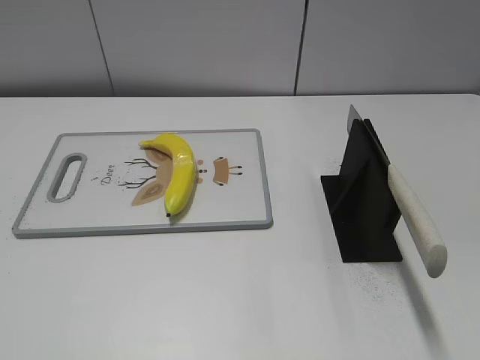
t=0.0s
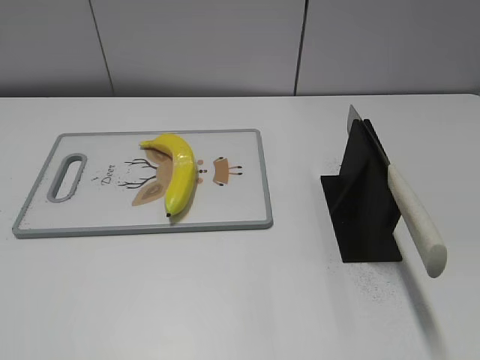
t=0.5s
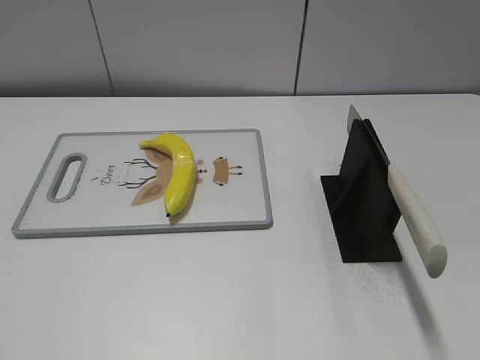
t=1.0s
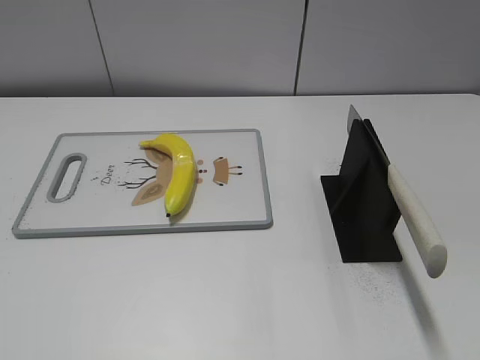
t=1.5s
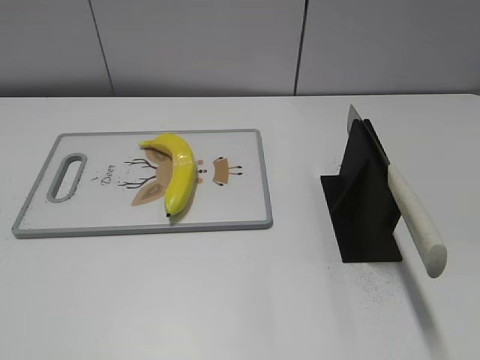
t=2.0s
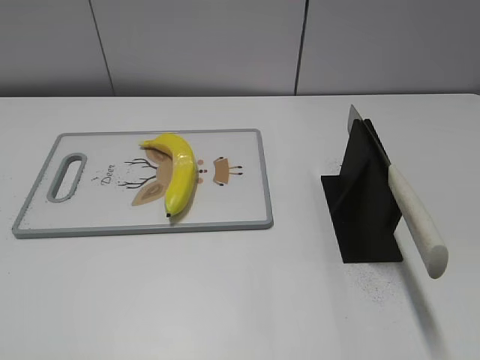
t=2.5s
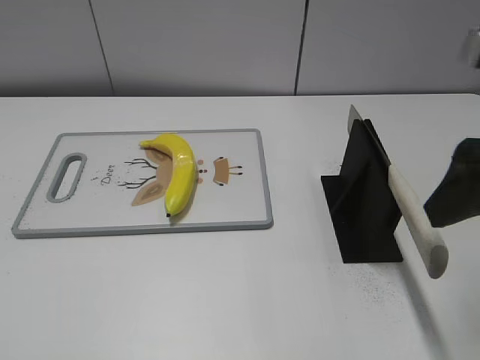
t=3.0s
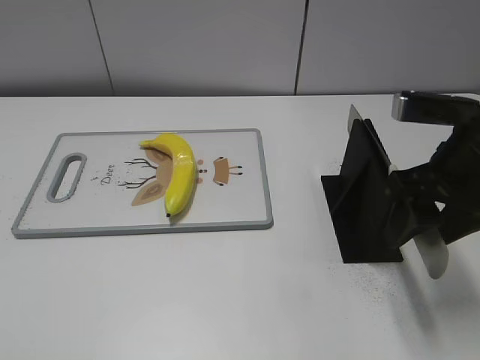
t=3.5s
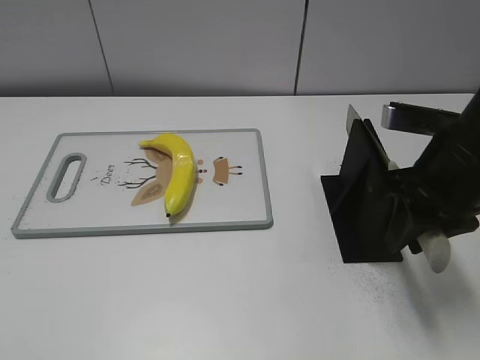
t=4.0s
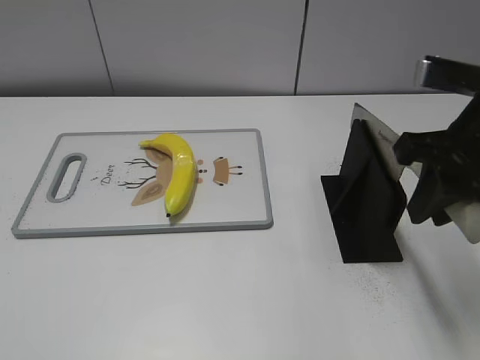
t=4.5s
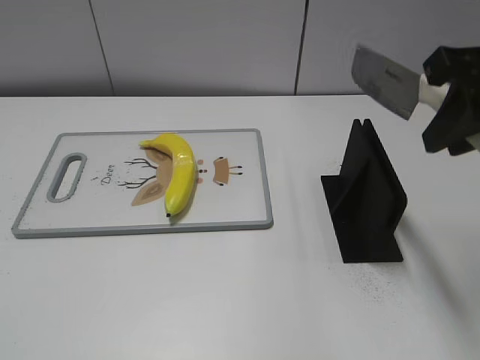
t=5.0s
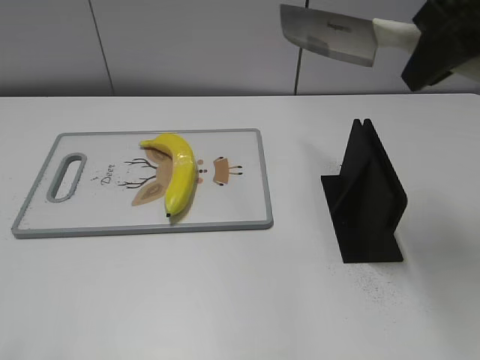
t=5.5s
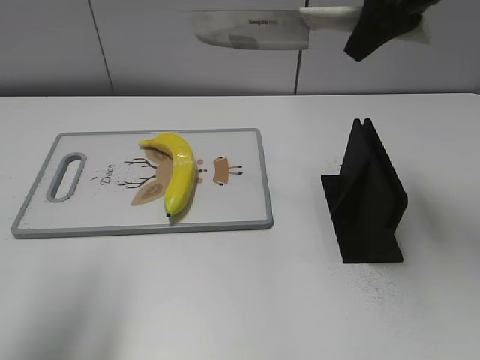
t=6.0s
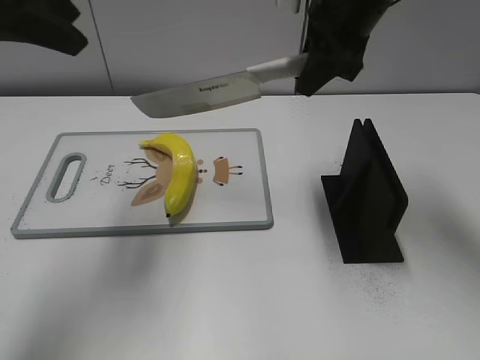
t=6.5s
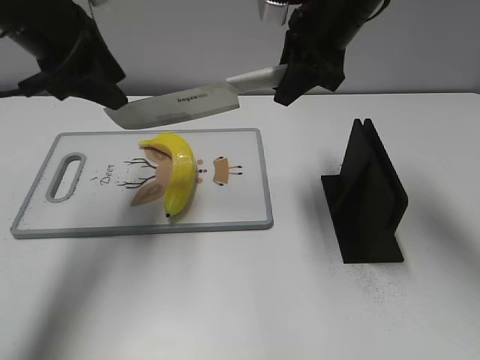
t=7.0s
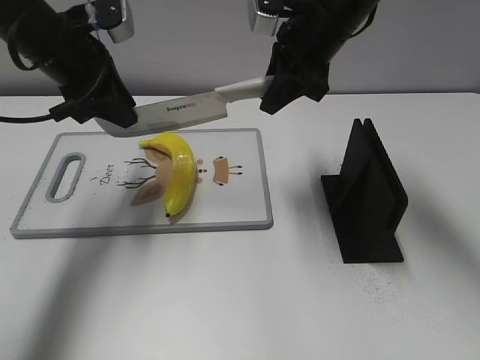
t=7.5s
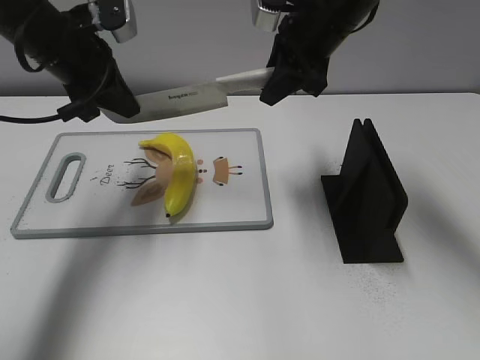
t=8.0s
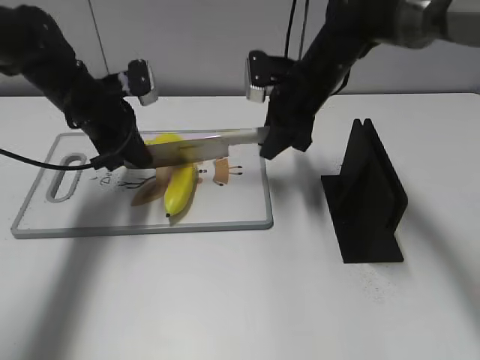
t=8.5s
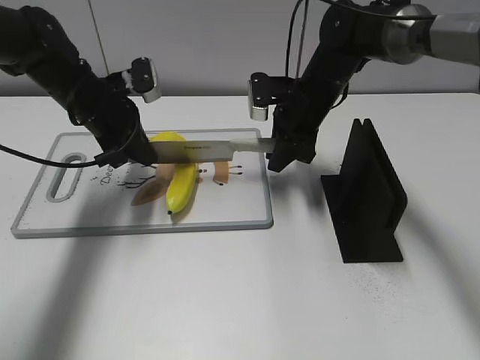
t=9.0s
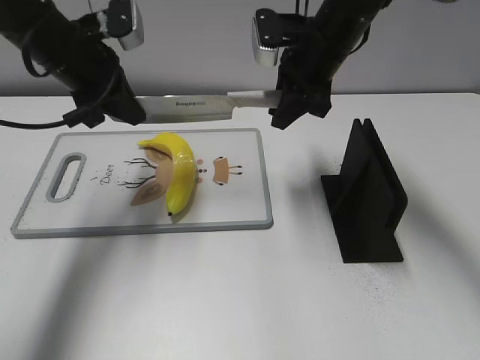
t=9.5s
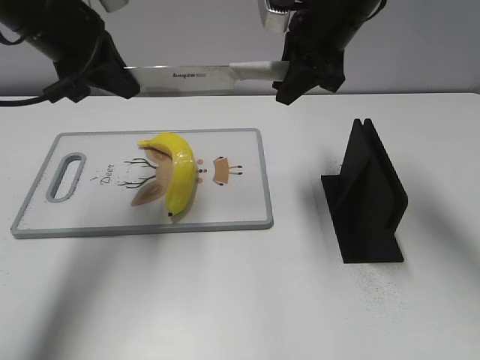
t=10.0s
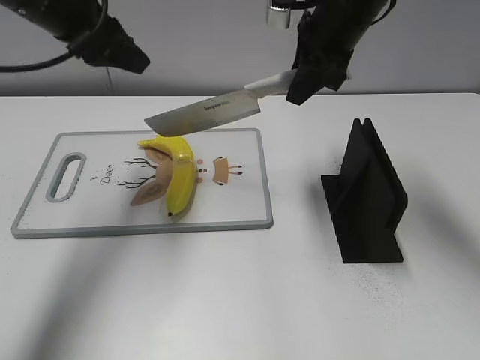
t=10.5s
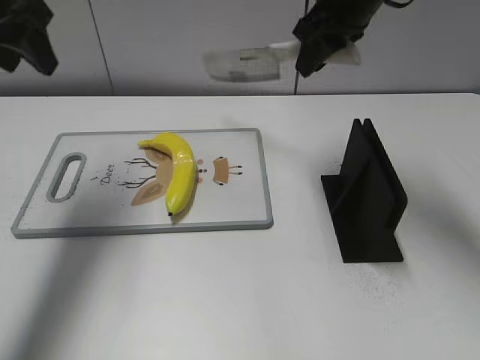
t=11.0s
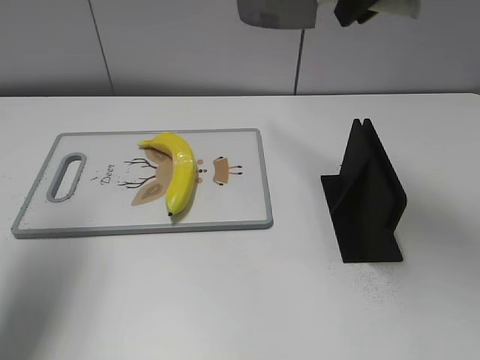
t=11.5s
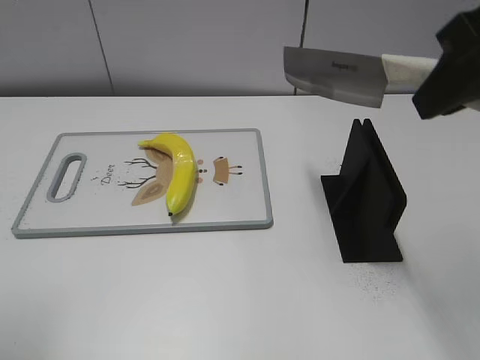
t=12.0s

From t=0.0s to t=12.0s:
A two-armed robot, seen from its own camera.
Task of the whole recording: cut plastic banana.
Step, from t=0.0s to t=4.5s: Grab the knife handle with your right hand.
Step, from t=5.0s to t=10.0s: Lift the knife with your right hand.
From t=2.0s to t=4.0s: The right gripper heads forward, covering approximately 25 cm, and closes its fingers.
From t=4.0s to t=6.0s: The left gripper shifts some 20 cm forward and upward, while the right gripper is displaced upward and forward by some 20 cm.
From t=6.0s to t=8.0s: The left gripper moves forward and downward, about 25 cm, and closes its fingers. Meanwhile the right gripper travels downward, forward and to the left by about 10 cm.
From t=8.0s to t=10.0s: The right gripper reaches roughly 10 cm downward, then returns. Meanwhile the left gripper moves roughly 10 cm downward and comes back.
From t=10.0s to t=12.0s: The left gripper is displaced backward and to the left by approximately 25 cm, and opens, while the right gripper goes some 25 cm backward, upward and to the right.

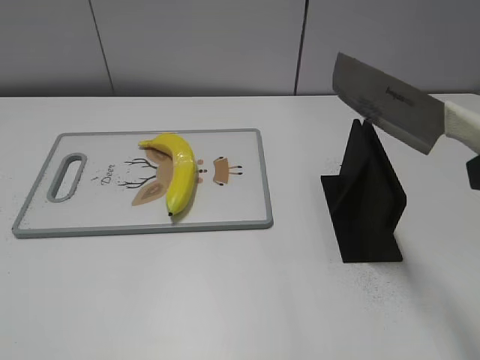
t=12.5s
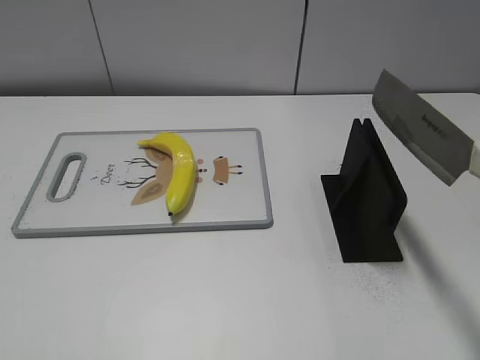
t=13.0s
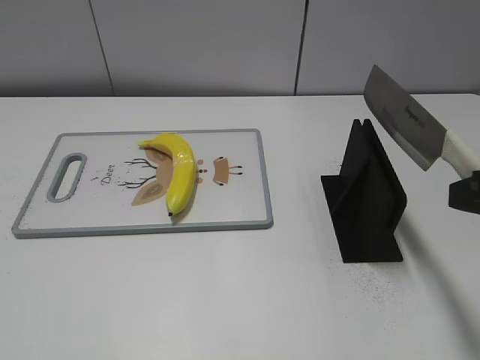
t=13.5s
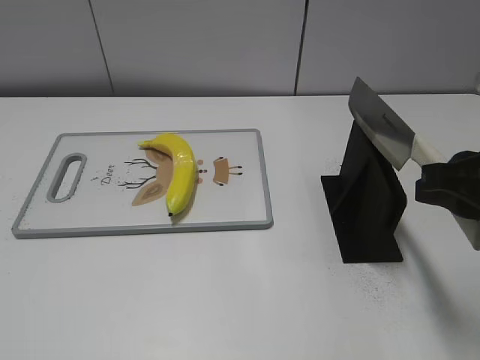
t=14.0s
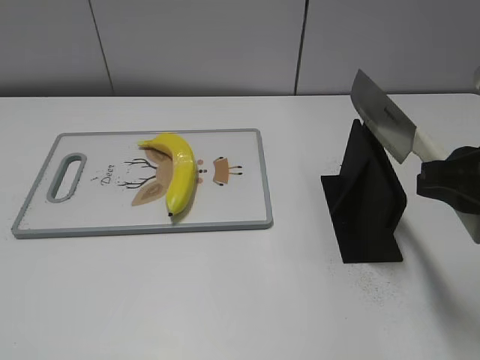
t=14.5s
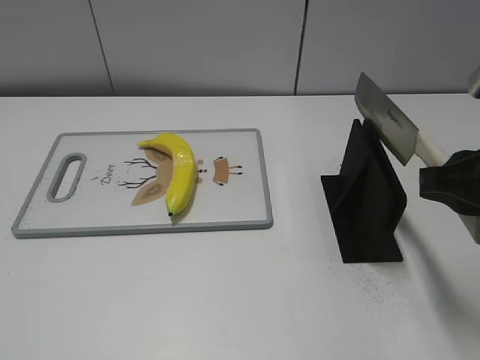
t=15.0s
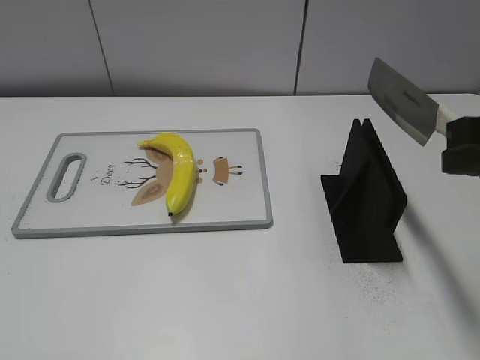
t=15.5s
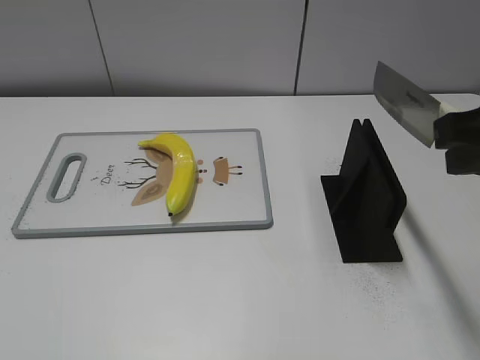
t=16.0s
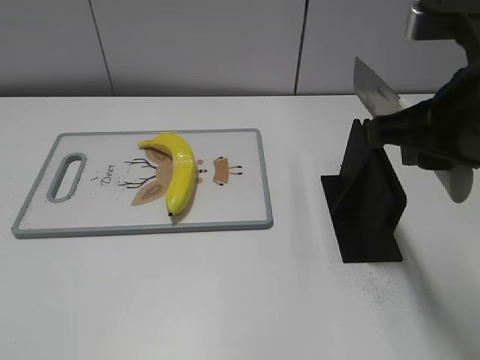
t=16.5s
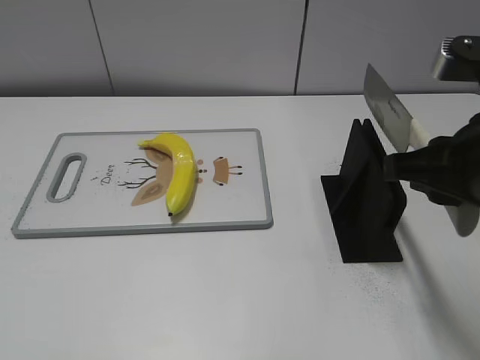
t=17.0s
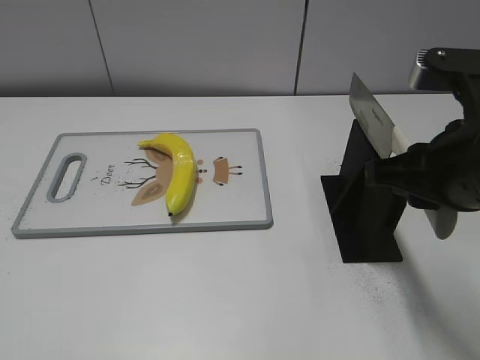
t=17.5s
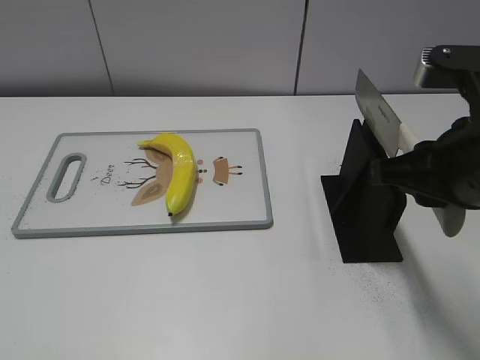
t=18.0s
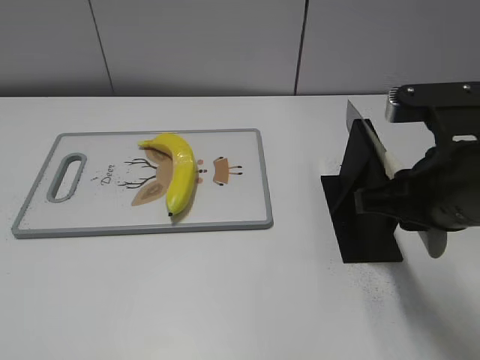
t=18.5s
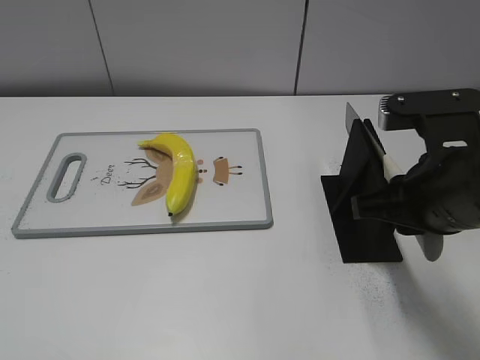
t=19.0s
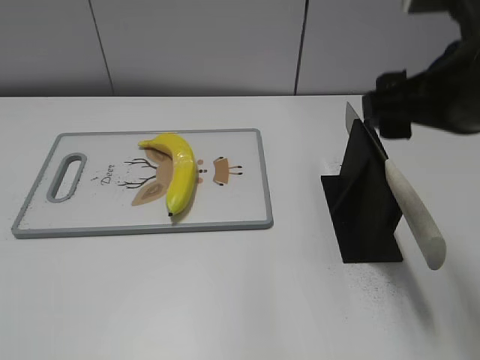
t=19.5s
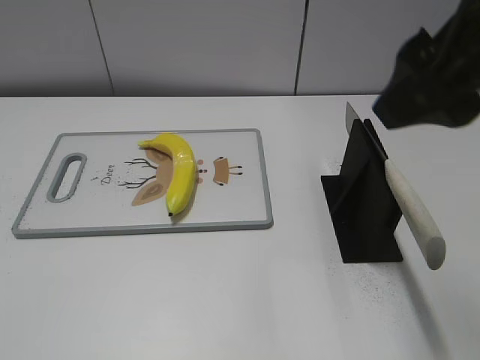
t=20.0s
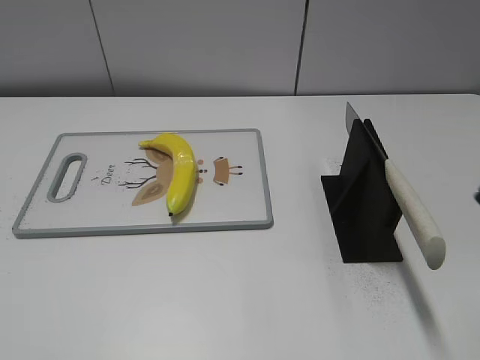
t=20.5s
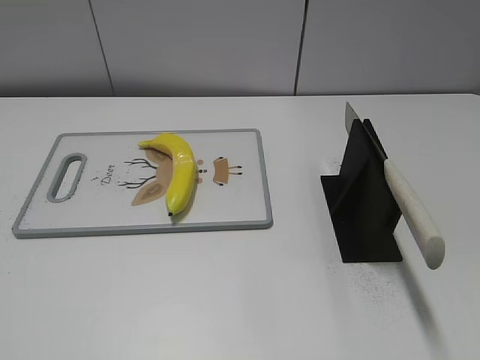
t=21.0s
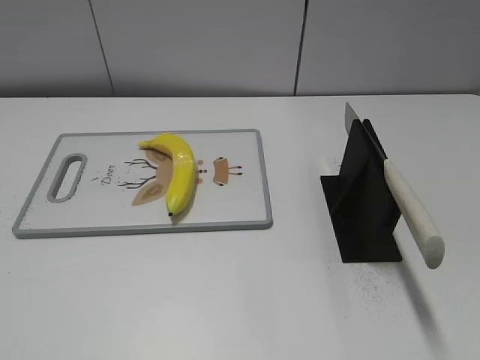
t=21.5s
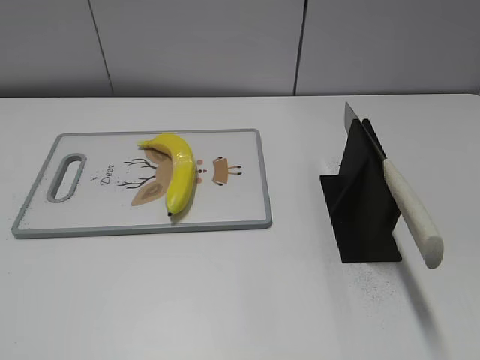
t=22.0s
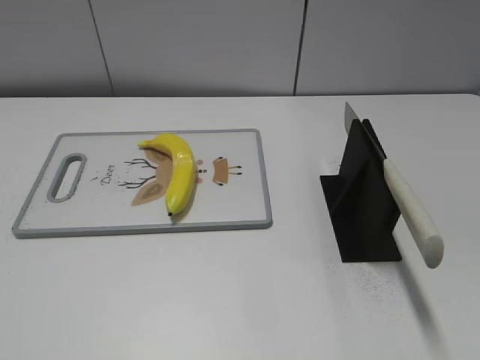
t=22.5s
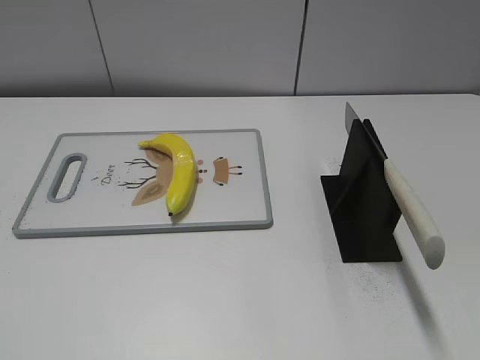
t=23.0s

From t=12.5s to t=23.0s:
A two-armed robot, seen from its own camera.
Task of the whole recording: cut plastic banana.
Step, from t=12.5s to t=23.0s: Place the knife on the storage rack with your right hand.
From t=12.5s to t=14.5s: The right gripper shifts roughly 10 cm downward.
From t=14.5s to t=16.5s: The right gripper shifts about 5 cm to the left.
From t=16.5s to t=19.0s: The right gripper moves downward, approximately 10 cm.
From t=19.0s to t=21.0s: The right gripper heads backward, to the right and upward, covering approximately 25 cm, and opens its fingers.

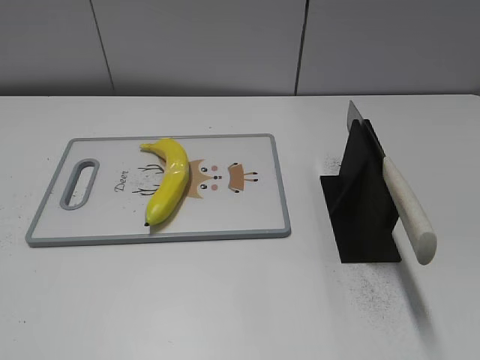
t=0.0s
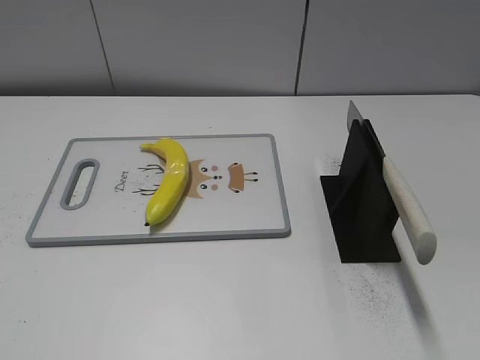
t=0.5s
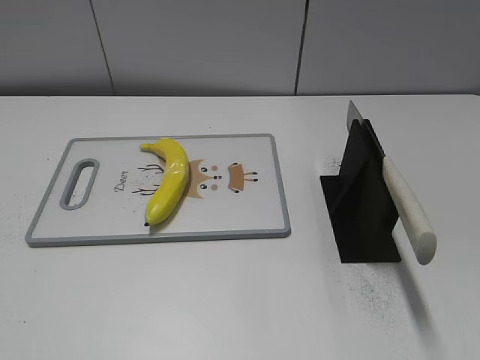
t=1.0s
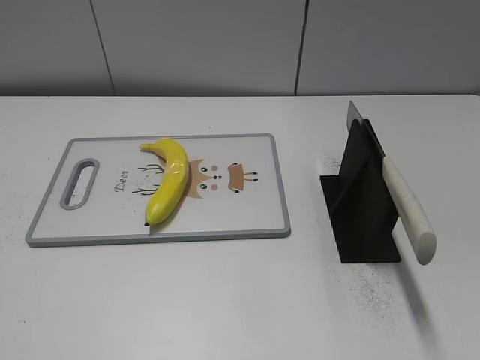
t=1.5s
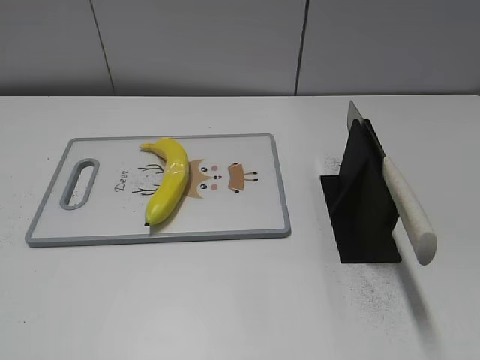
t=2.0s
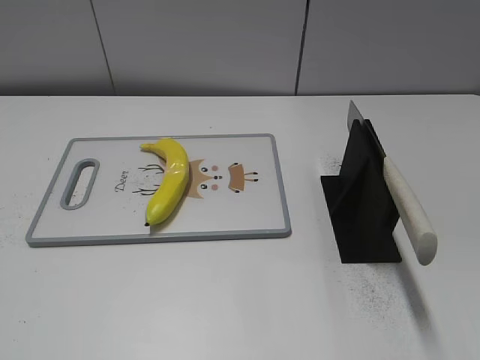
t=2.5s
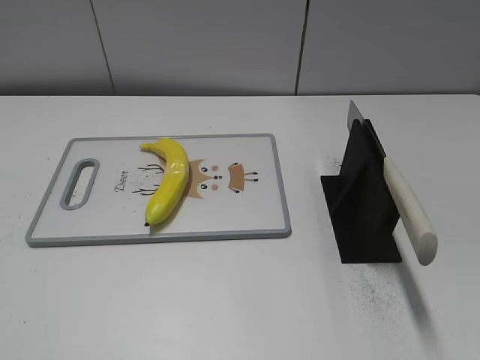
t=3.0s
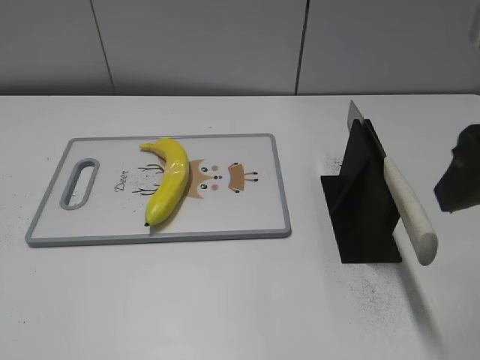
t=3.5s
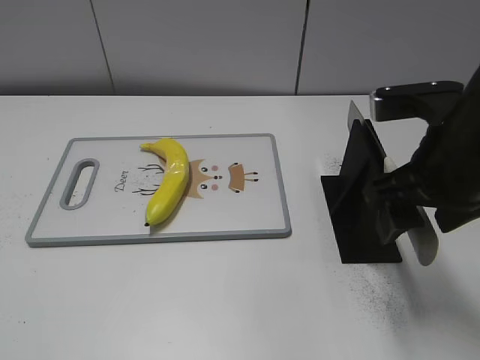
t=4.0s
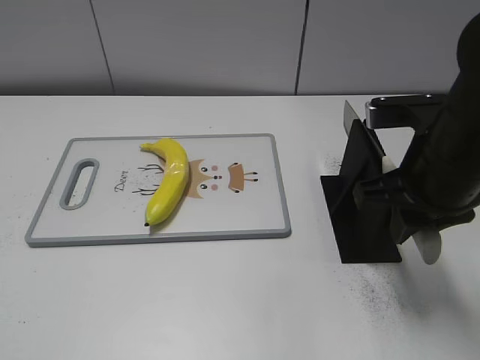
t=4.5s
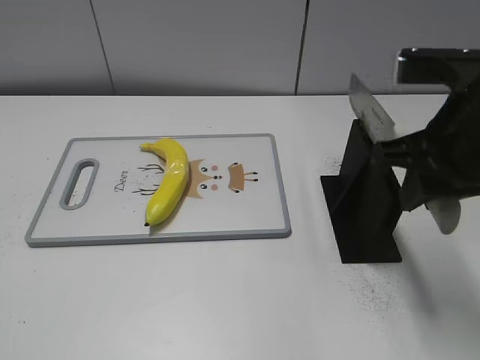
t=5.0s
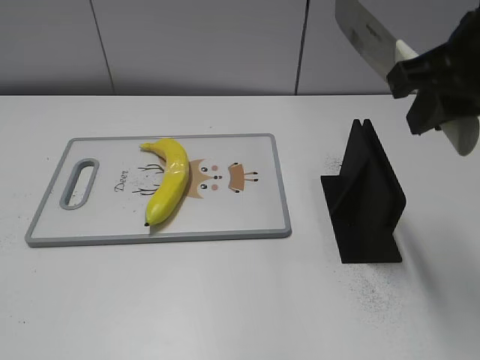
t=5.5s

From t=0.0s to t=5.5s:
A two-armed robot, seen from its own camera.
Task of the whole recording: cut plastic banana.
From t=2.0s to t=3.5s: The right gripper is displaced forward and to the left by some 20 cm.
From t=3.5s to t=5.5s: The right gripper is displaced forward by about 5 cm, moves some 10 cm downward and comes back, and closes.
